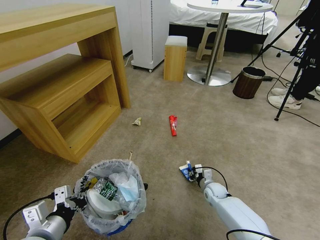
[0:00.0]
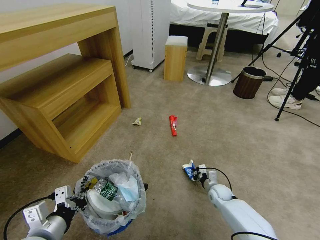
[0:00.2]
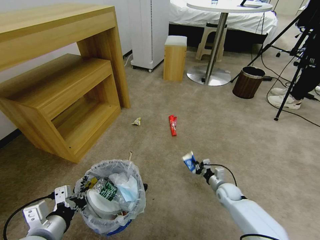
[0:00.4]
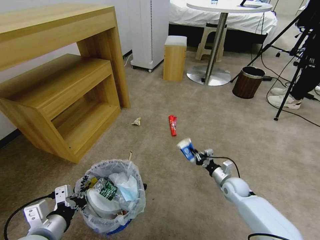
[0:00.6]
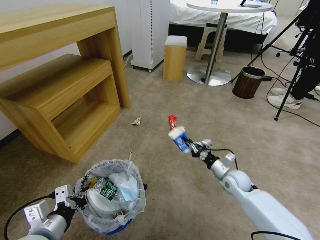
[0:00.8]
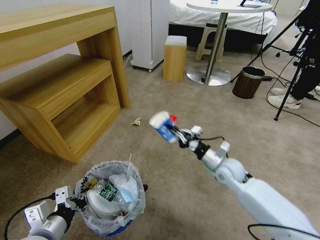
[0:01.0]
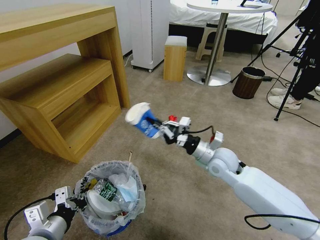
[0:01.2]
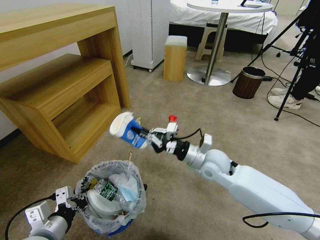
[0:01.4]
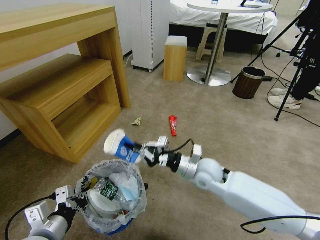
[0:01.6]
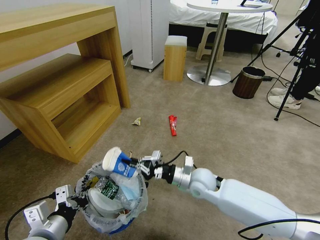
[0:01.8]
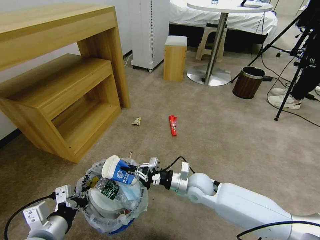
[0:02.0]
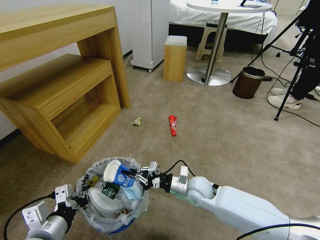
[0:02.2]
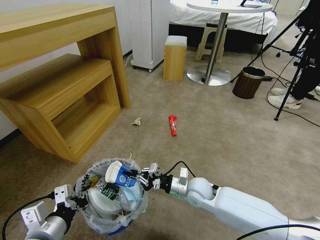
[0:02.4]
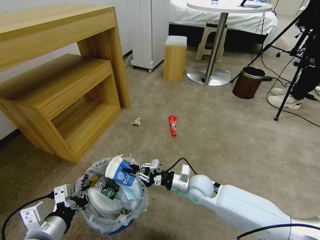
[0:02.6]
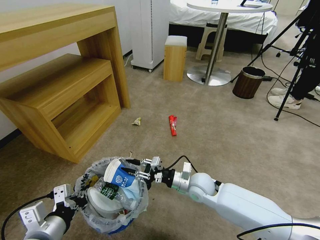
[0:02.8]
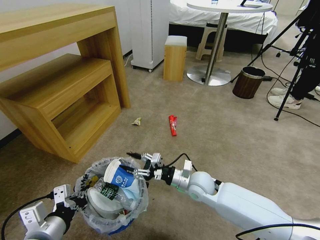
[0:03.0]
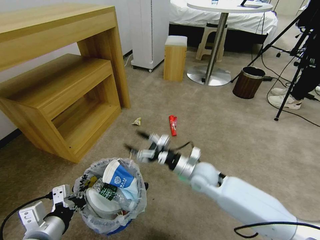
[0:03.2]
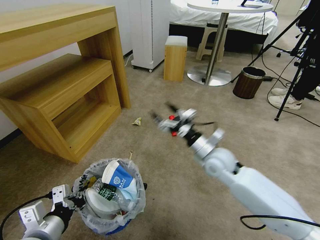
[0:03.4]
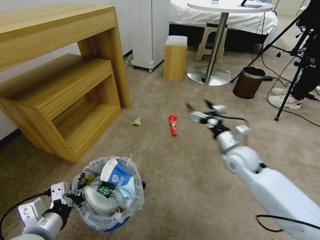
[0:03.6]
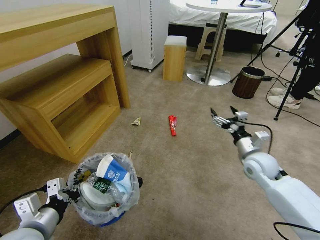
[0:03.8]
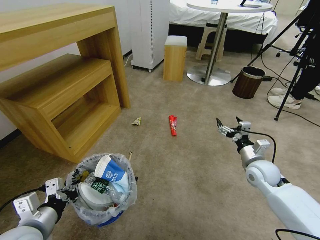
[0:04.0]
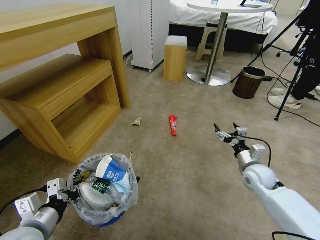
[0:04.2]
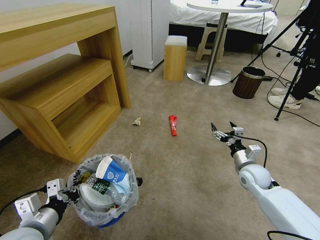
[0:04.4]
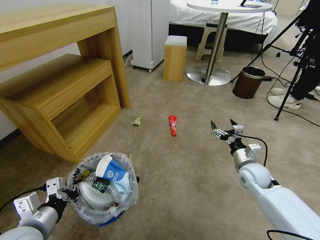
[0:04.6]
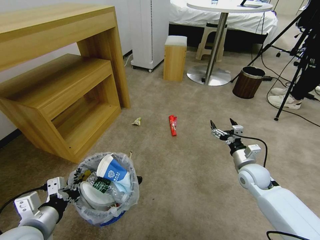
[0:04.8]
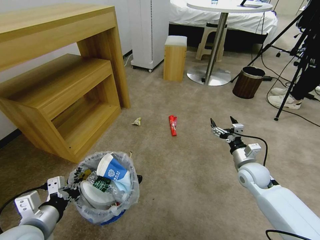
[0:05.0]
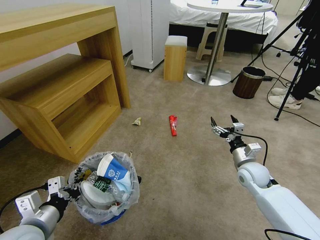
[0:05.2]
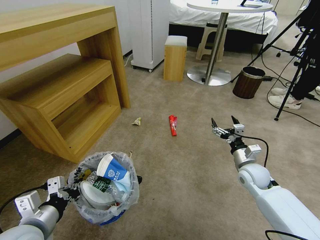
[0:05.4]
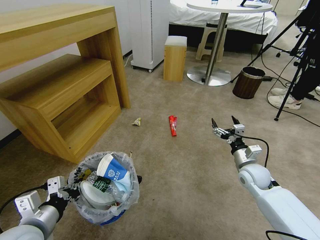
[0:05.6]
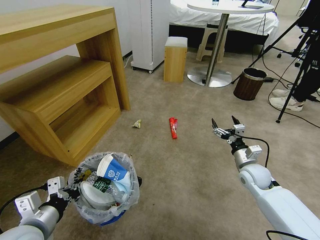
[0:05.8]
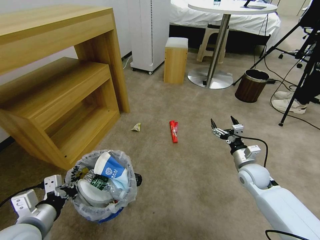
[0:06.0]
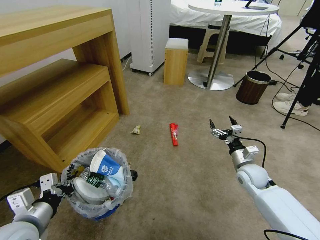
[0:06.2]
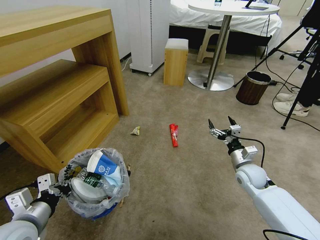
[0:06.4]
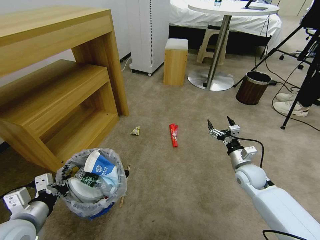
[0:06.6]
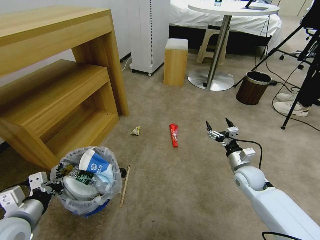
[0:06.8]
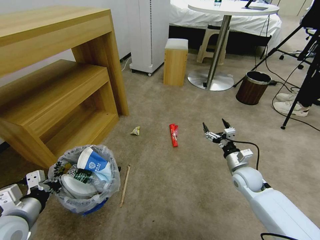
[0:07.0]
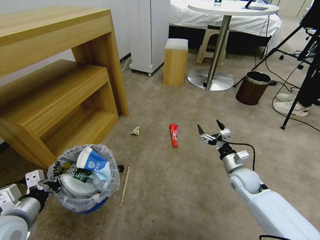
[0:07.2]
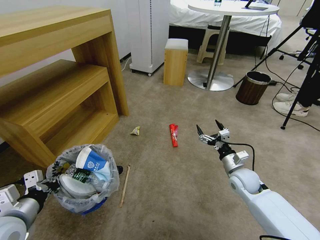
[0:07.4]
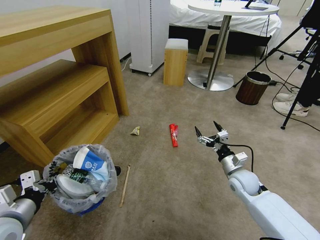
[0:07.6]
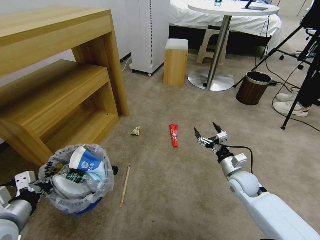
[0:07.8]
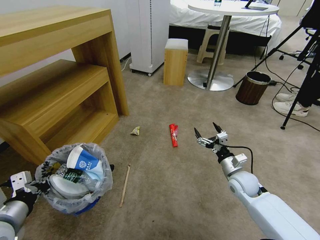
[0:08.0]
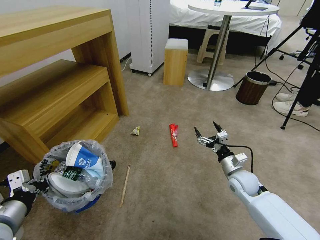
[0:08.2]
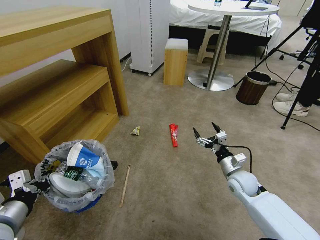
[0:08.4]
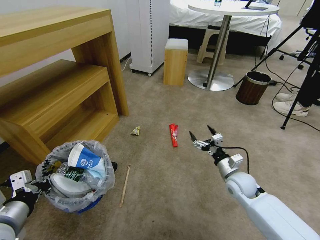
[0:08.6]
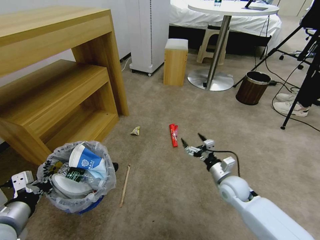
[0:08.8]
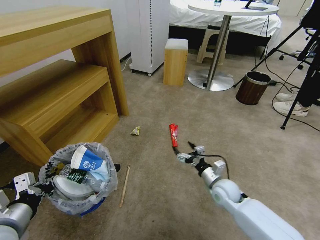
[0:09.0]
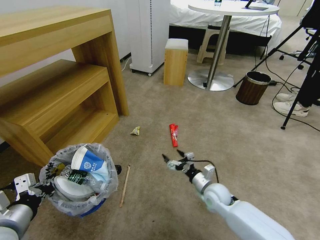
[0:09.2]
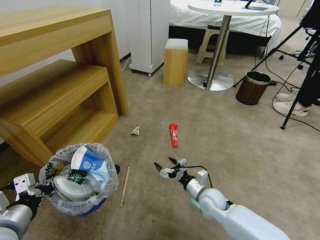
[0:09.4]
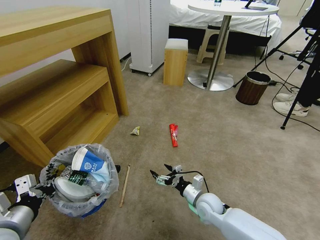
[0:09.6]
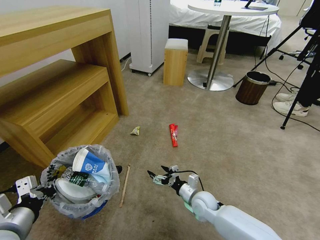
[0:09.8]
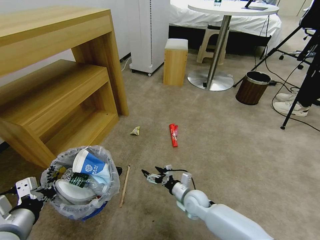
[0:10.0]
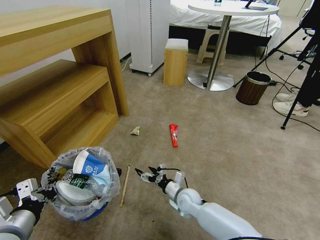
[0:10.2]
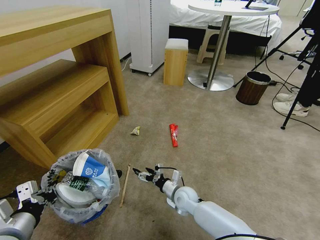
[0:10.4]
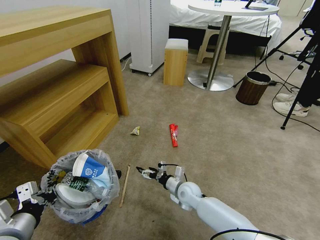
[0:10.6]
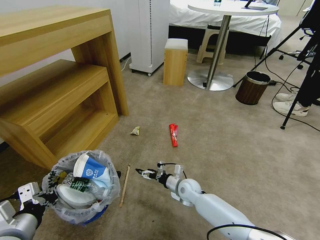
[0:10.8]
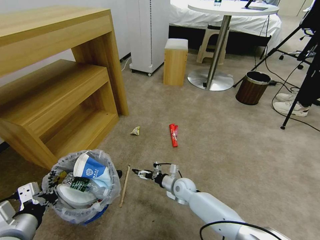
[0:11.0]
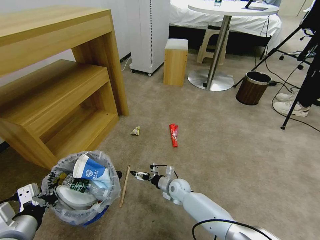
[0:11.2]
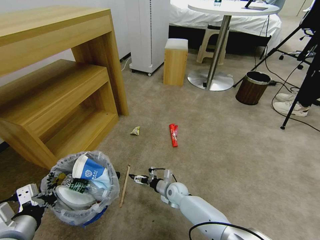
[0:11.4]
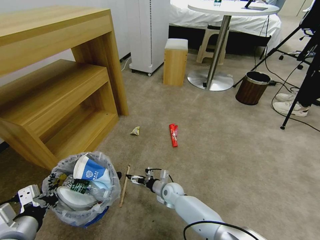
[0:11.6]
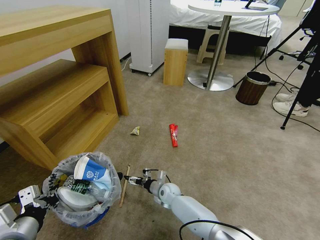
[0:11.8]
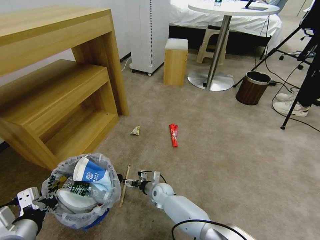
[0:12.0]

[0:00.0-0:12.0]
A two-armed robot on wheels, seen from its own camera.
Task of the whole recording: Pick up the trash bin and place the garbage on the floor into it.
0:00.0 to 0:01.6: The right gripper moves upward, approximately 25 cm.
0:01.6 to 0:03.0: The right gripper moves downward, roughly 5 cm, and opens up.
0:03.0 to 0:04.4: The right gripper travels to the right by about 20 cm, and opens its fingers.
0:06.0 to 0:07.6: The left gripper is displaced to the left by roughly 5 cm.
0:07.6 to 0:09.0: The right gripper is displaced to the left by about 5 cm.
0:09.0 to 0:10.4: The right gripper goes approximately 15 cm to the left and downward.
0:10.4 to 0:12.0: The right gripper is displaced to the left and downward by roughly 10 cm.

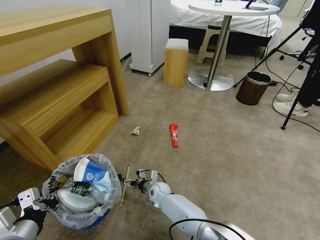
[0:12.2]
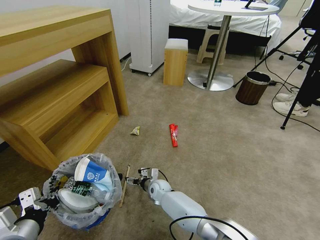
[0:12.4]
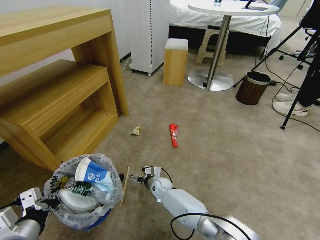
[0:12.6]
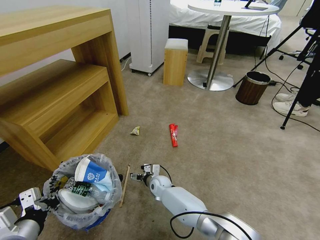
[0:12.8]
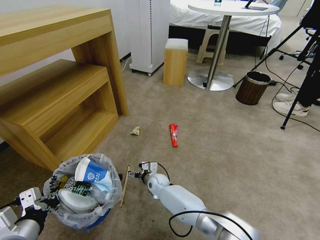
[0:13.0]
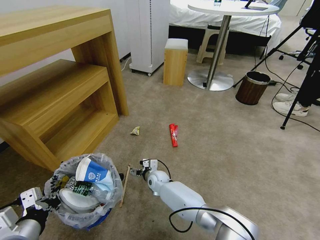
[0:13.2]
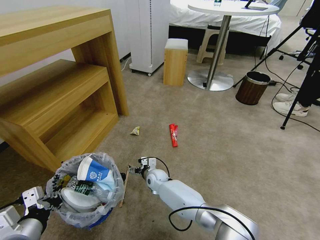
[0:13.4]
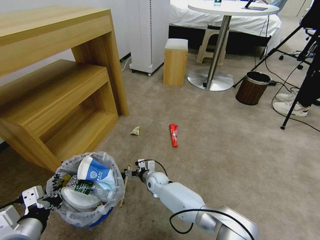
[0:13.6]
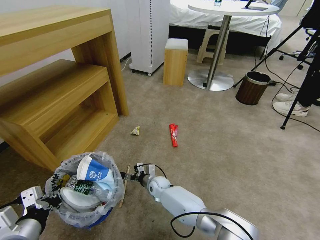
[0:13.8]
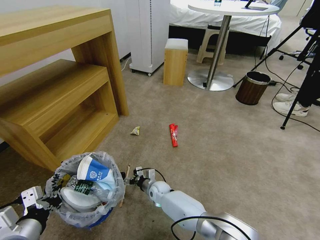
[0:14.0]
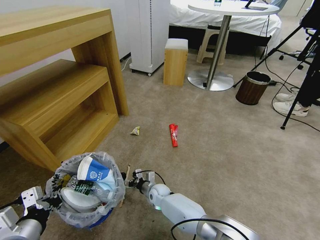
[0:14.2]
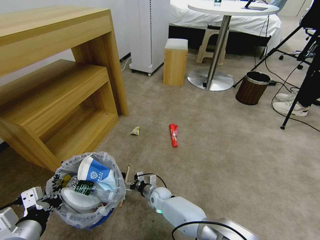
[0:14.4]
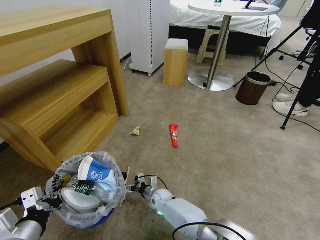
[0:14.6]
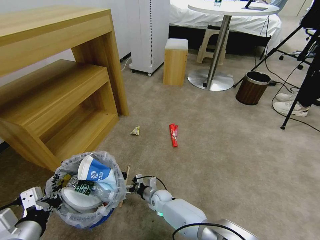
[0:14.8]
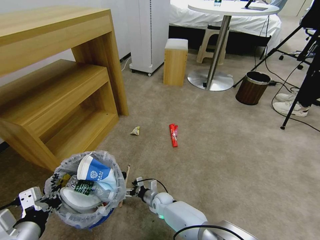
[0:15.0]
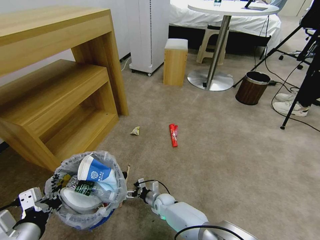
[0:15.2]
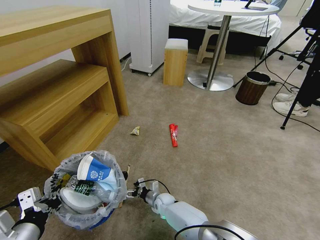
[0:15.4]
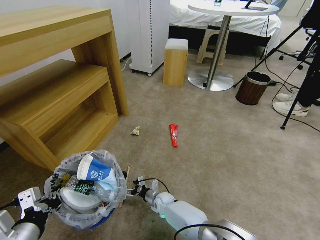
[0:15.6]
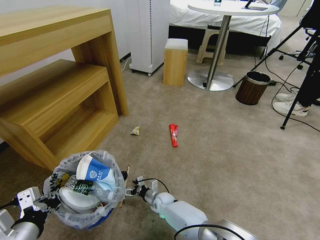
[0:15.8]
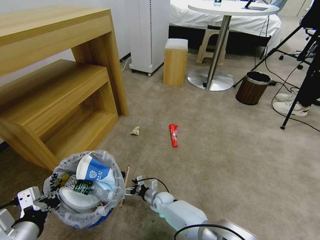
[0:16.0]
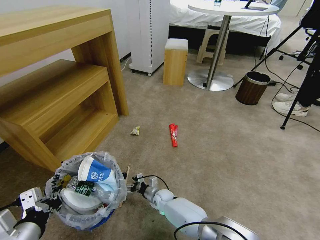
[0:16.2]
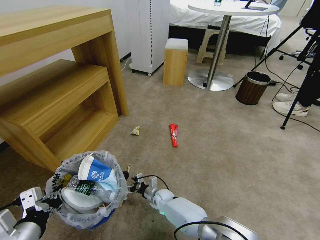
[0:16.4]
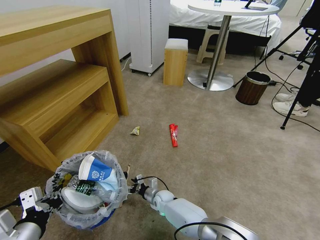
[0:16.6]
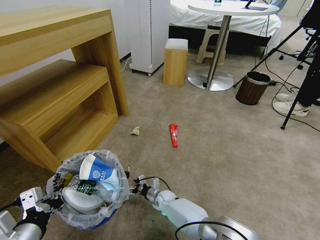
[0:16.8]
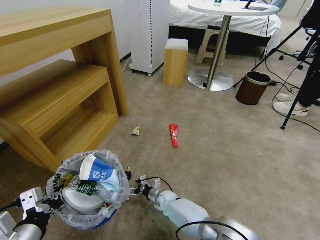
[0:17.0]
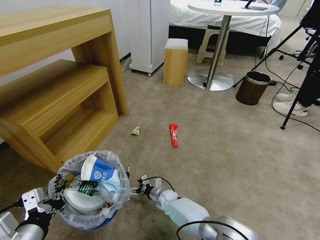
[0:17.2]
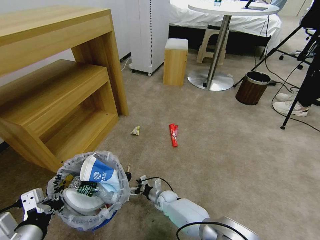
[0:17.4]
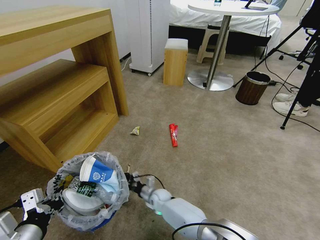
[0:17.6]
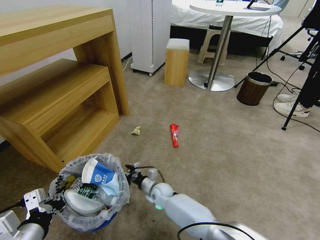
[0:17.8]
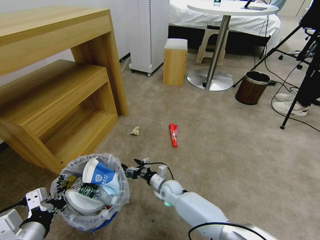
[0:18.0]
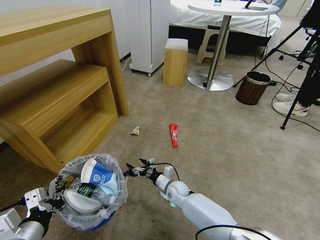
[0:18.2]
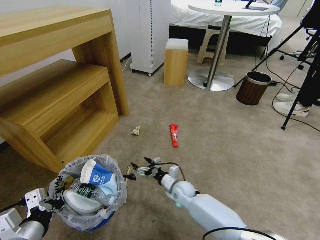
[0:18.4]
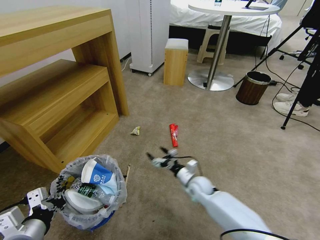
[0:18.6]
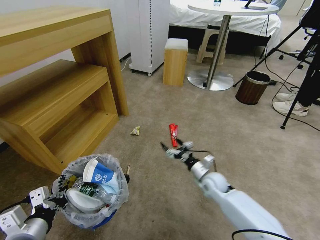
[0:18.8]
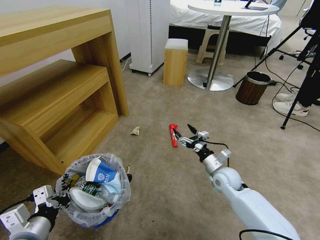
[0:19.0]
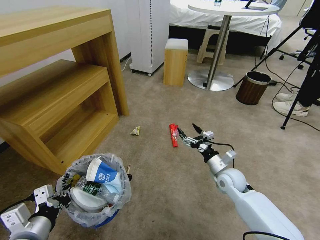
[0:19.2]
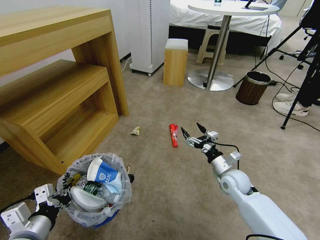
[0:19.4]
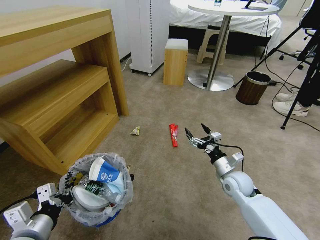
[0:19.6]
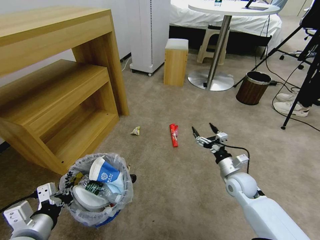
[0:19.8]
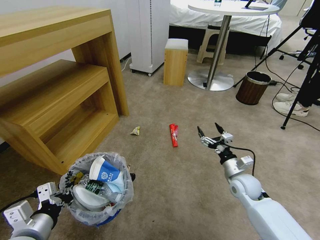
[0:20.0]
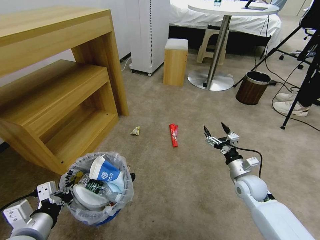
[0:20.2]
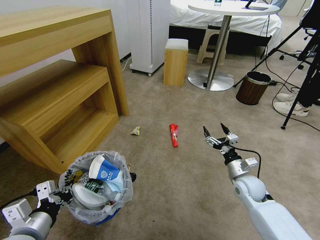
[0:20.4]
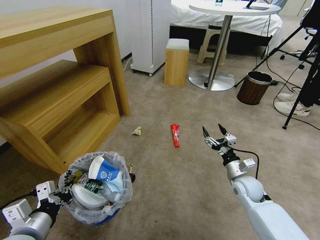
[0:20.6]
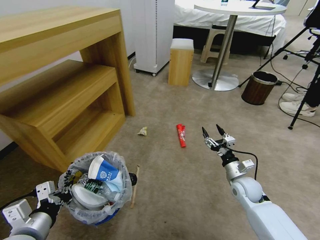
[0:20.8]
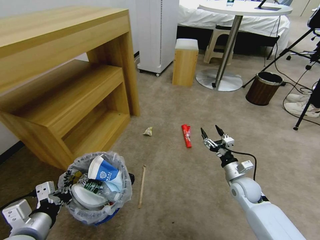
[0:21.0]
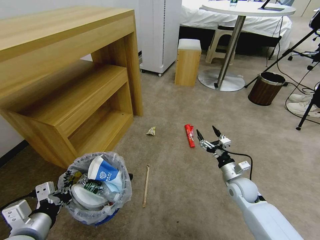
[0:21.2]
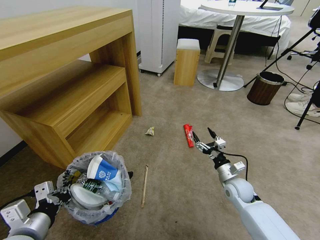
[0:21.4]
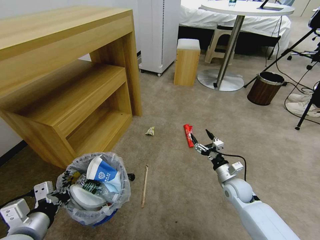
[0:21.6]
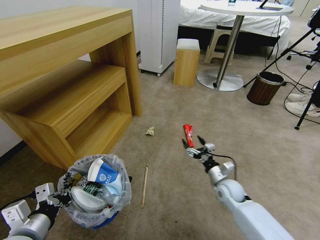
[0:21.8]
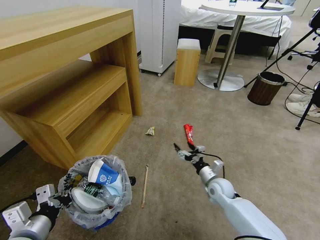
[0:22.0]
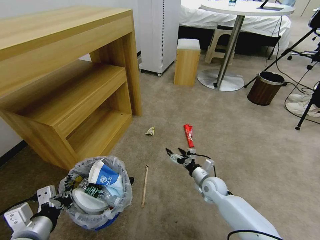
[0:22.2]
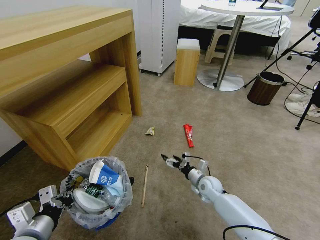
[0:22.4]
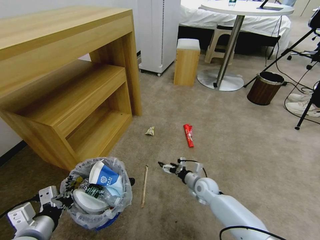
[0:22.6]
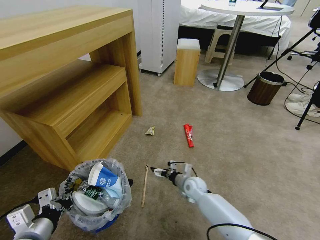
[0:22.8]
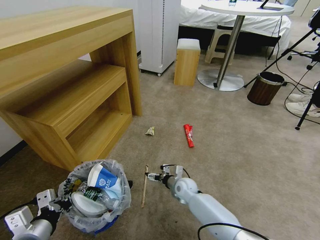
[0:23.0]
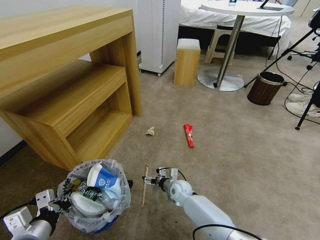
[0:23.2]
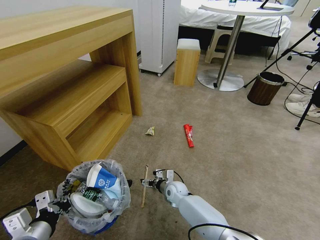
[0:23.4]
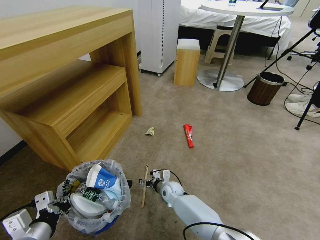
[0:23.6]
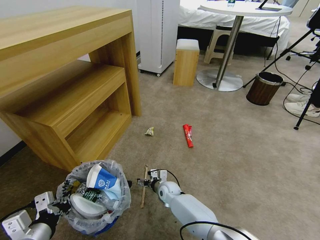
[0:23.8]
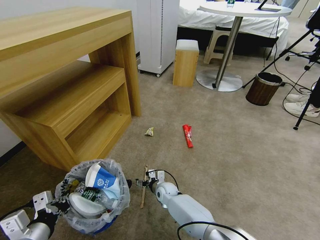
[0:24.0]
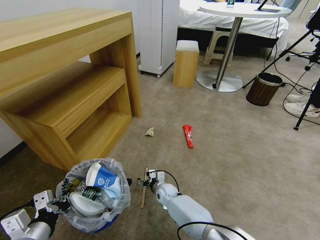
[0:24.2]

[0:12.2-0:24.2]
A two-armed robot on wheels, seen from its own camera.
Task of the whole recording: Pick up the trash bin and place the garbage on the floor into it.
0:12.2 to 0:13.8: The grippers stay close to where they were, moving slightly.
0:13.8 to 0:15.2: The right gripper moves downward and backward, roughly 10 cm.
0:15.2 to 0:16.6: The grippers move only a little.
0:16.6 to 0:18.2: The right gripper is displaced upward and to the right by approximately 10 cm.
0:18.2 to 0:19.8: The right gripper goes some 25 cm to the right and upward.
0:21.2 to 0:22.6: The right gripper shifts roughly 15 cm to the left and downward.
0:22.6 to 0:24.2: The right gripper travels to the left and downward by roughly 20 cm.
